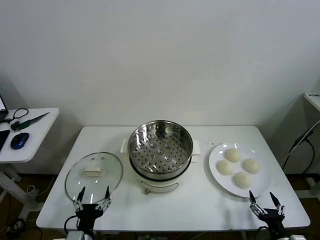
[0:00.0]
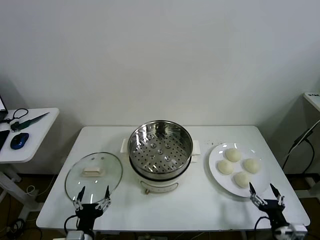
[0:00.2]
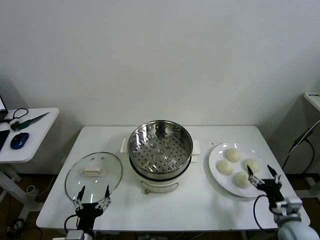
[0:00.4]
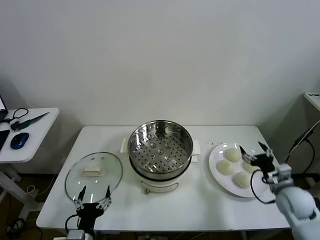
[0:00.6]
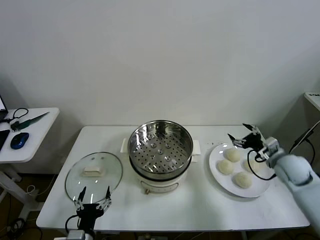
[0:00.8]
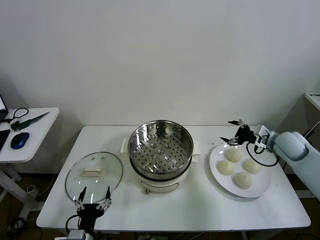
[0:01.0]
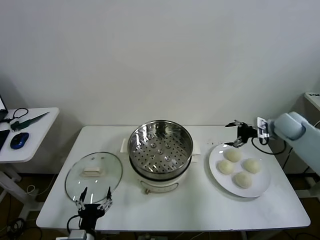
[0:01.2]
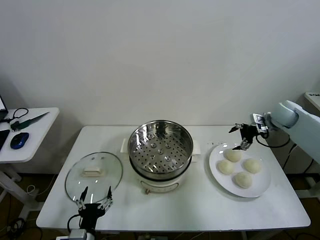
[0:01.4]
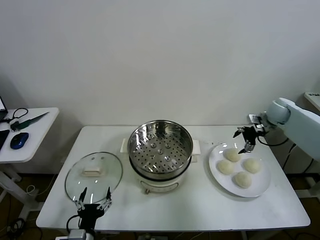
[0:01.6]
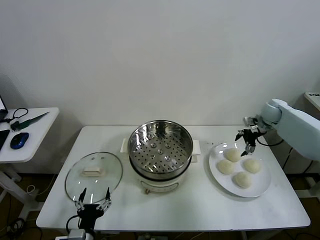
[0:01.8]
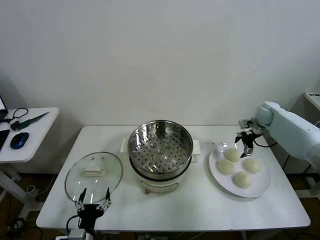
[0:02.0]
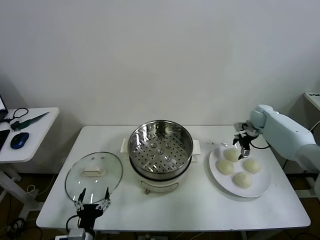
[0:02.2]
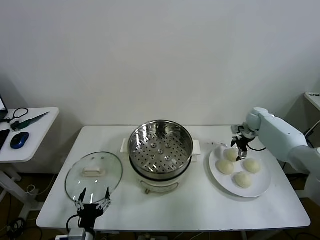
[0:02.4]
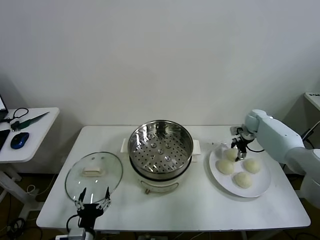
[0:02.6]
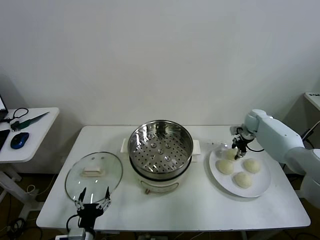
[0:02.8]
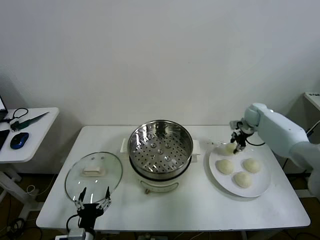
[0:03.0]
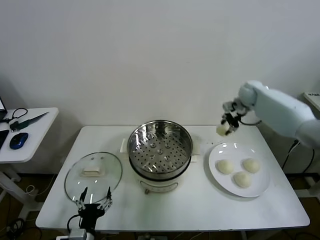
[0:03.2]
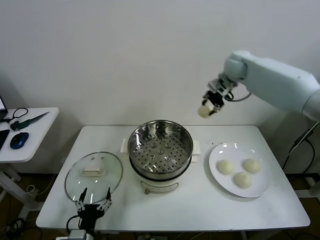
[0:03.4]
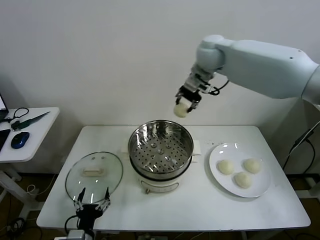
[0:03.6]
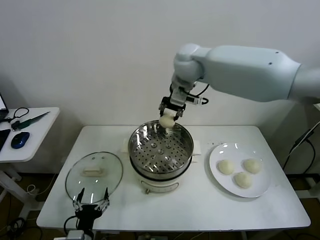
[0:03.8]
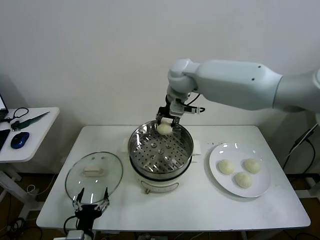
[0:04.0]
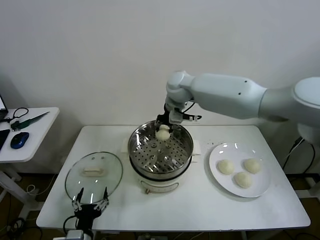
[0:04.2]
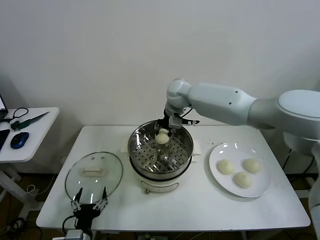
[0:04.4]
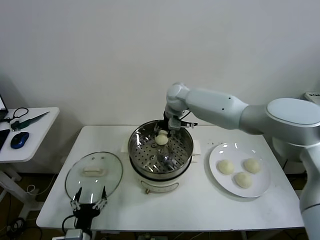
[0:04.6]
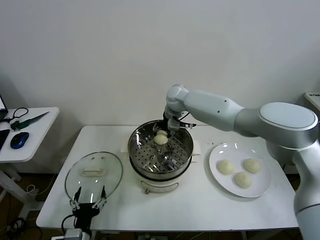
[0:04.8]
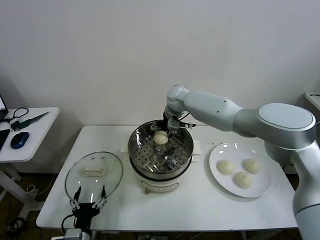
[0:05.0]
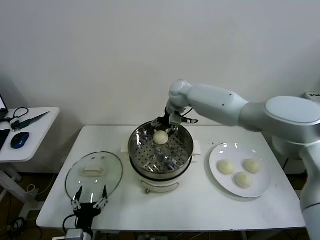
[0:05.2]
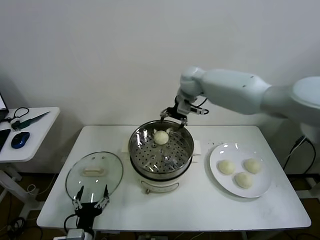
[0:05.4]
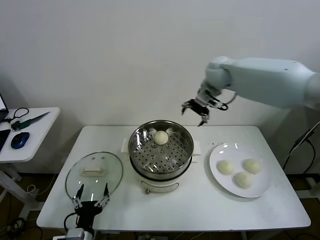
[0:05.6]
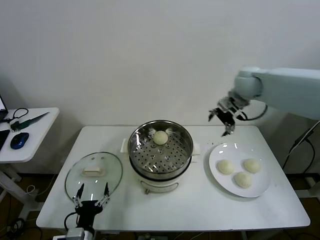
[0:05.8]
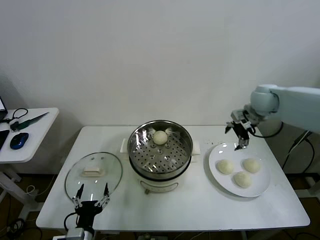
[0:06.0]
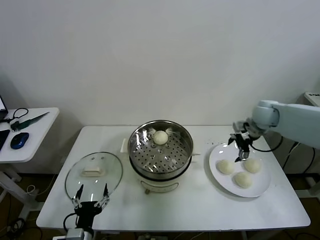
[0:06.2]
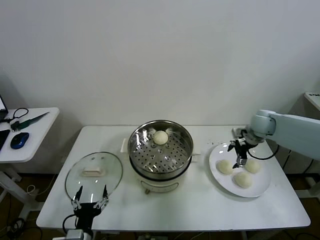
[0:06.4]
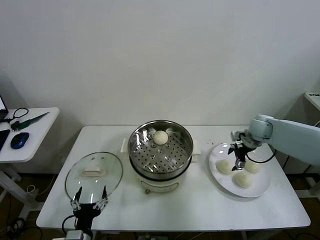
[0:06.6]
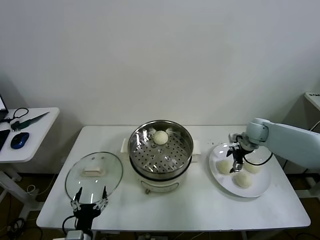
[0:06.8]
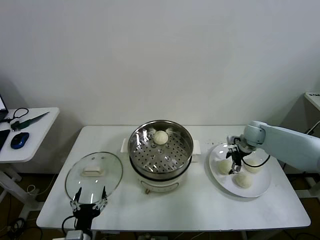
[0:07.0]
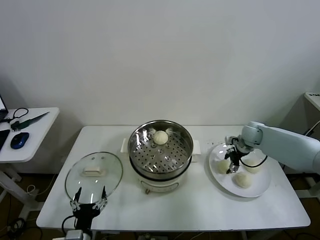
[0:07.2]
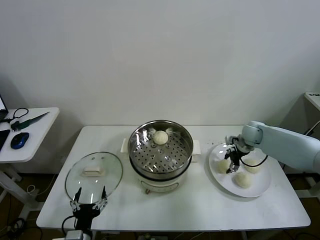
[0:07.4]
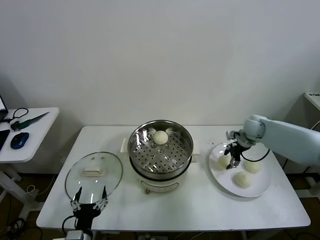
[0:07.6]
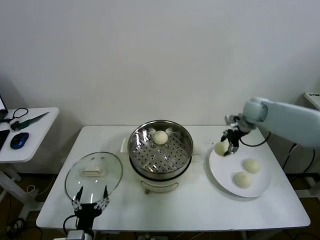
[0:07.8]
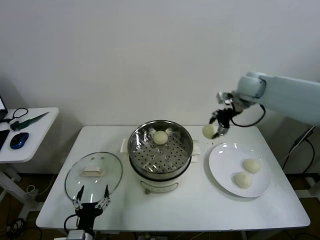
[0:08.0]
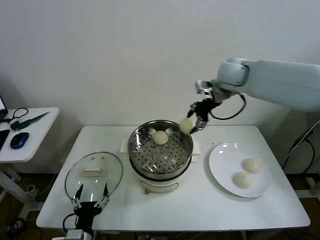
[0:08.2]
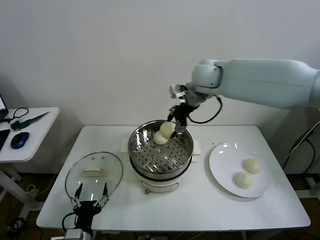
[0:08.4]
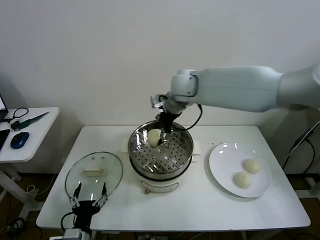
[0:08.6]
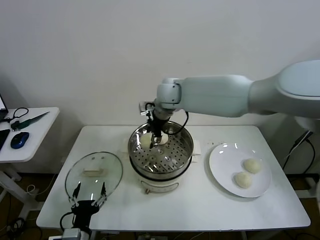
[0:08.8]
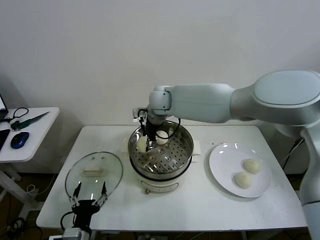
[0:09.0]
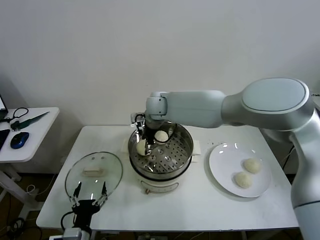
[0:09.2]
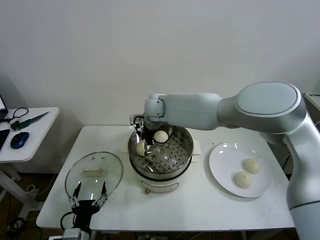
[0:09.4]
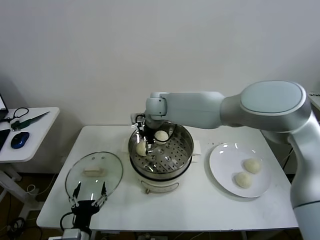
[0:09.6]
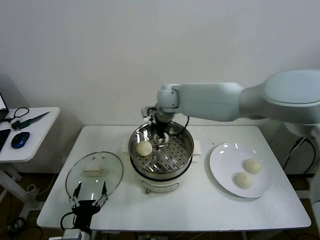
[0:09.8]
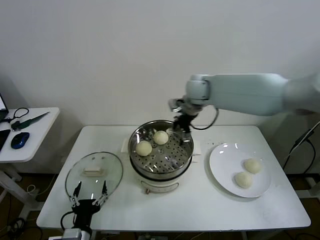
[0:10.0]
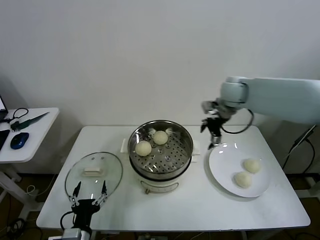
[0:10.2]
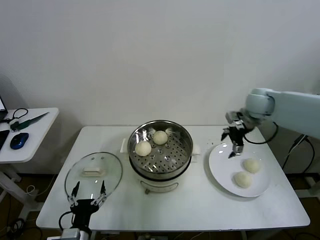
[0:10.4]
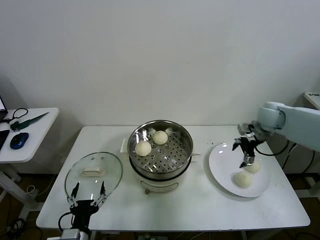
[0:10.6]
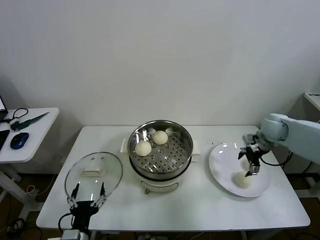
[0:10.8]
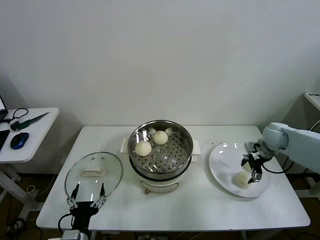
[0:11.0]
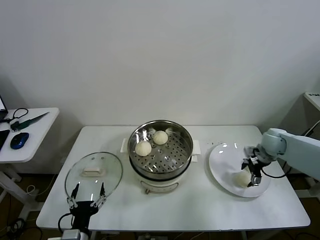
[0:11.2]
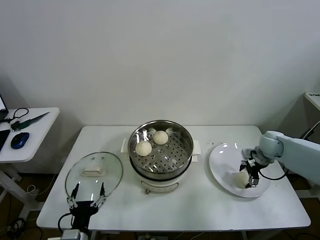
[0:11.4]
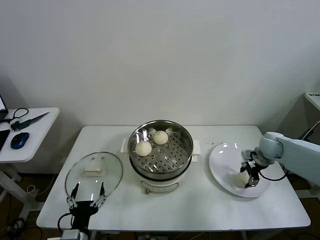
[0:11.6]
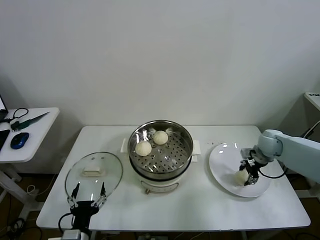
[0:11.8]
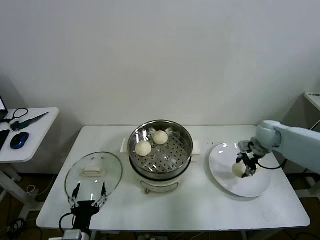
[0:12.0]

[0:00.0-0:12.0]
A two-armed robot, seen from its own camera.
Task of the whole recording: take steamed baozi put them in steamer then cover it.
Step, 0:00.0 to 0:02.6: Grasp the baozi in the plate with right gripper.
Step, 0:03.0 to 0:05.0: Place the baozi on the steamer with right gripper.
Step, 0:05.2 to 0:07.2: Grasp the baozi in the plate with right gripper.
Step, 0:07.4 to 0:09.4: Place the baozi on the steamer with right gripper.
Step, 0:09.6 to 0:11.6: Grasp the baozi in the plate with right gripper.
0:01.6 to 0:03.0: The right gripper is displaced to the left and forward by roughly 10 cm, moves some 10 cm downward and comes back, and closes up.
0:03.0 to 0:04.4: The right gripper travels to the left by roughly 30 cm.
0:04.4 to 0:06.0: The right gripper heads to the right, covering roughly 30 cm, and opens.
0:06.0 to 0:07.6: The right gripper goes about 10 cm downward, and closes.
0:07.6 to 0:09.0: The right gripper shifts roughly 35 cm to the left.
0:09.0 to 0:10.4: The right gripper travels to the right by about 35 cm, and opens up.
0:10.4 to 0:12.0: The right gripper heads downward, covering some 10 cm, and closes up.

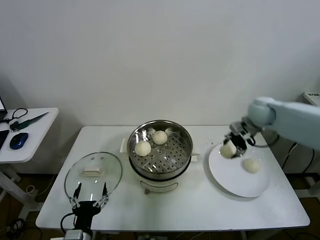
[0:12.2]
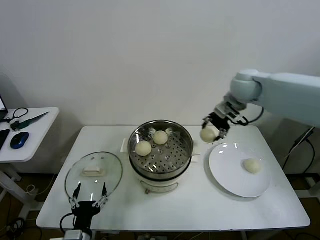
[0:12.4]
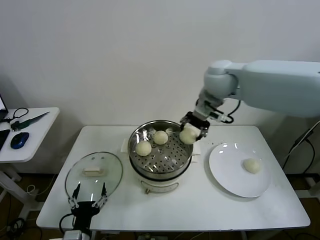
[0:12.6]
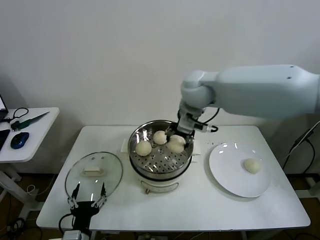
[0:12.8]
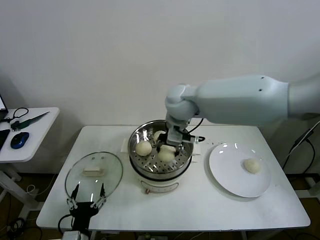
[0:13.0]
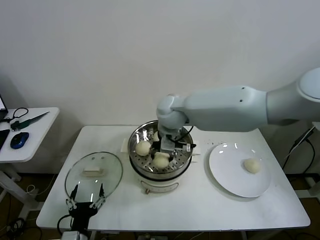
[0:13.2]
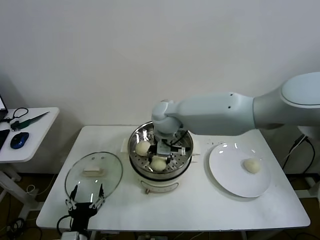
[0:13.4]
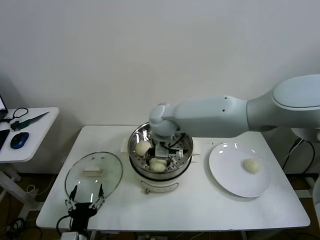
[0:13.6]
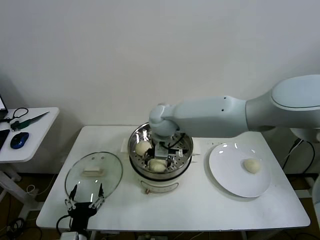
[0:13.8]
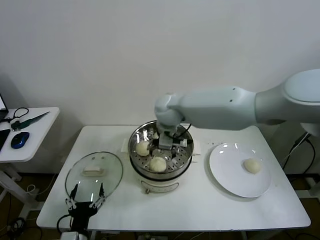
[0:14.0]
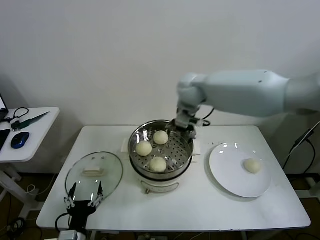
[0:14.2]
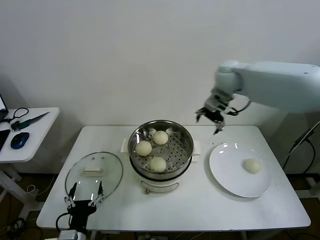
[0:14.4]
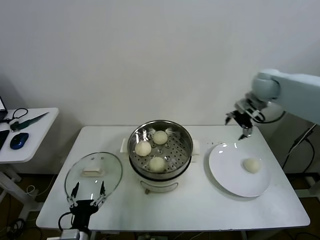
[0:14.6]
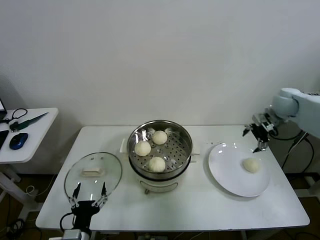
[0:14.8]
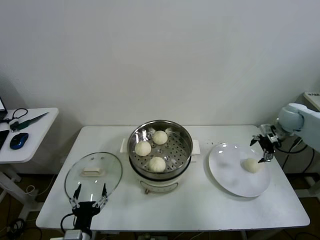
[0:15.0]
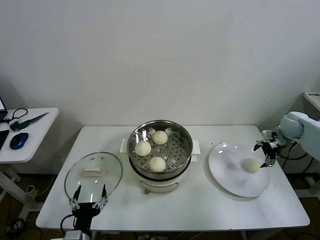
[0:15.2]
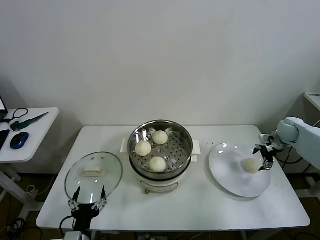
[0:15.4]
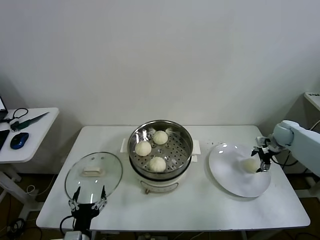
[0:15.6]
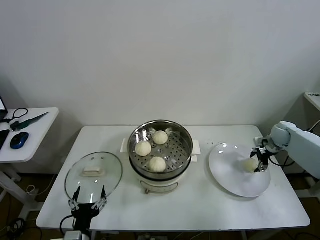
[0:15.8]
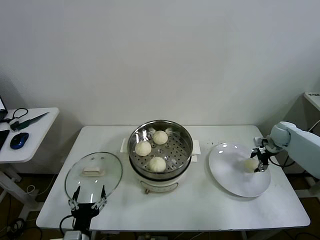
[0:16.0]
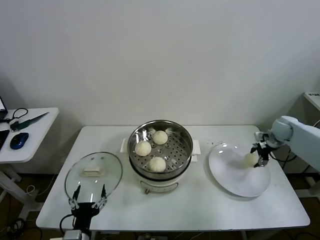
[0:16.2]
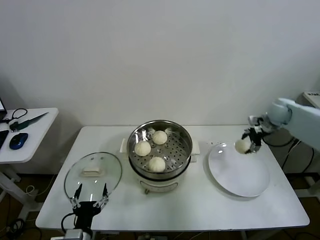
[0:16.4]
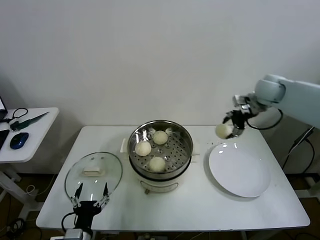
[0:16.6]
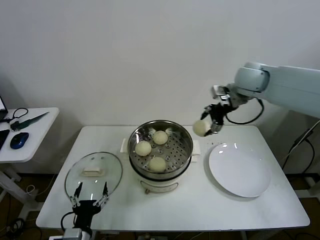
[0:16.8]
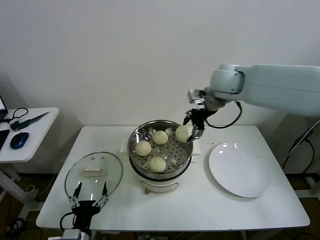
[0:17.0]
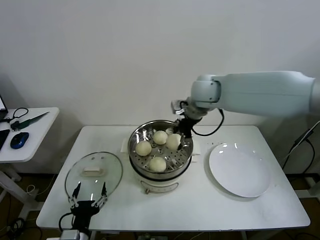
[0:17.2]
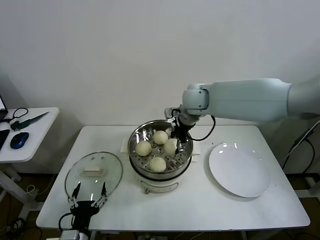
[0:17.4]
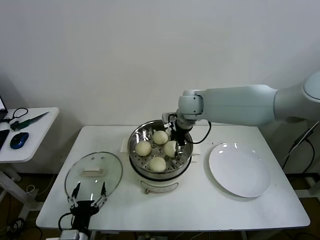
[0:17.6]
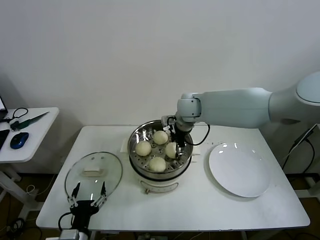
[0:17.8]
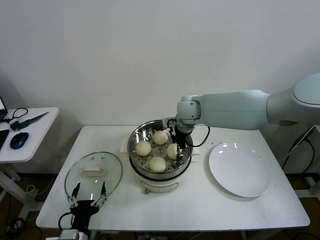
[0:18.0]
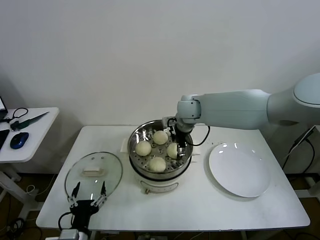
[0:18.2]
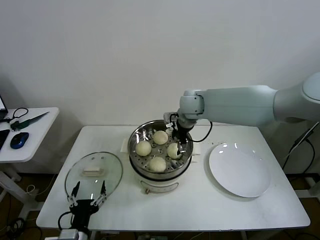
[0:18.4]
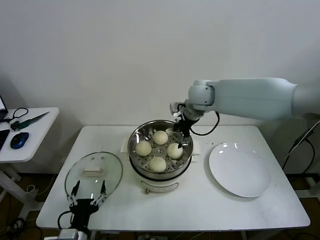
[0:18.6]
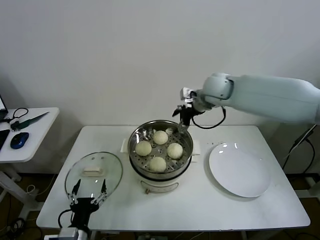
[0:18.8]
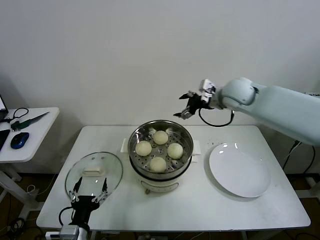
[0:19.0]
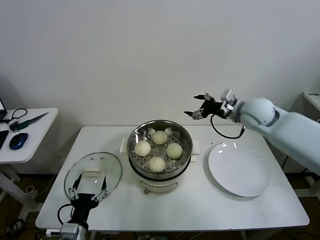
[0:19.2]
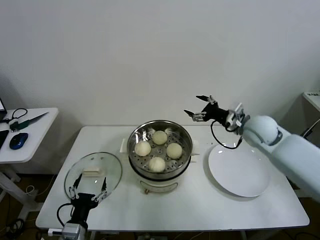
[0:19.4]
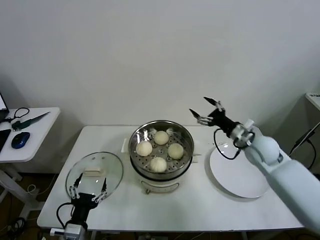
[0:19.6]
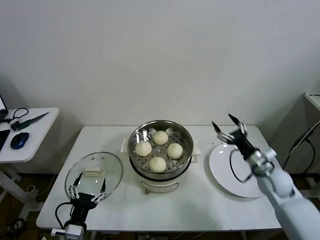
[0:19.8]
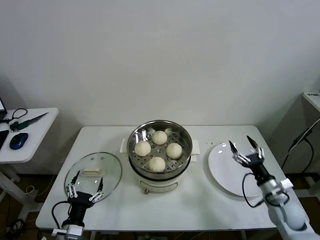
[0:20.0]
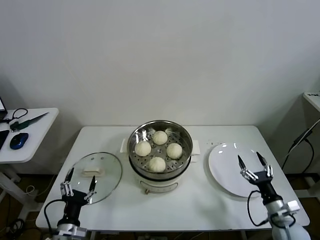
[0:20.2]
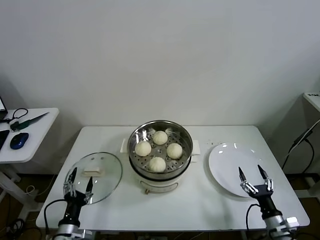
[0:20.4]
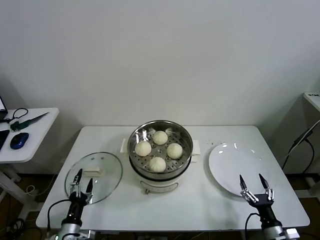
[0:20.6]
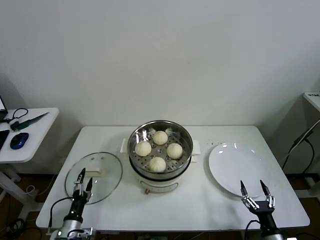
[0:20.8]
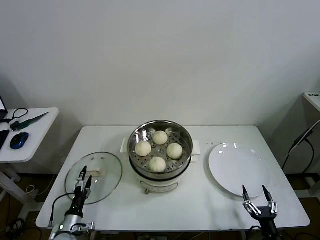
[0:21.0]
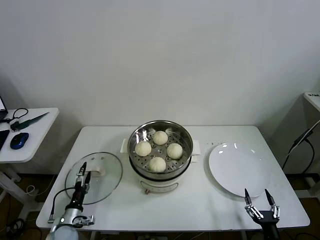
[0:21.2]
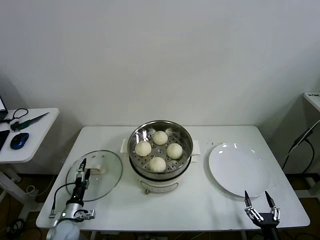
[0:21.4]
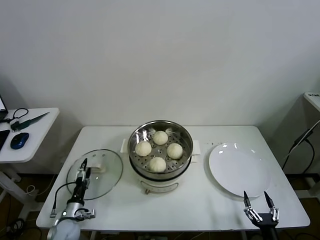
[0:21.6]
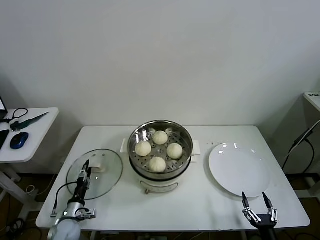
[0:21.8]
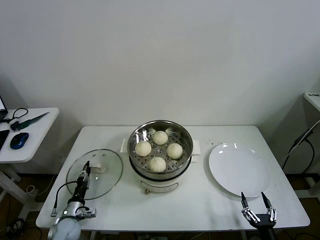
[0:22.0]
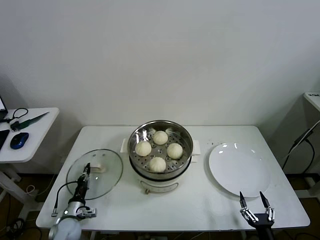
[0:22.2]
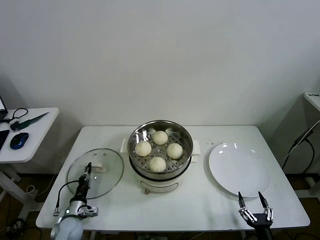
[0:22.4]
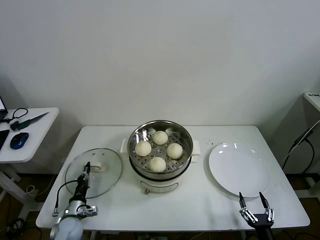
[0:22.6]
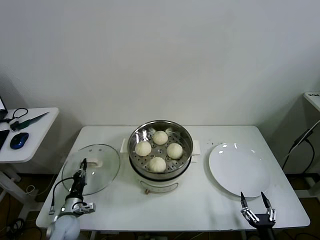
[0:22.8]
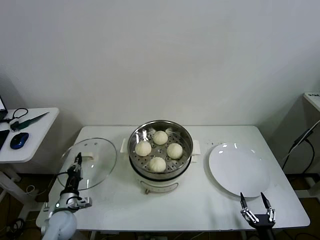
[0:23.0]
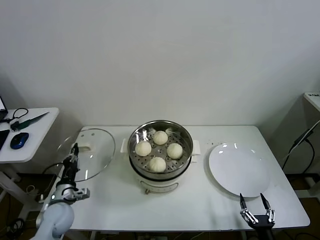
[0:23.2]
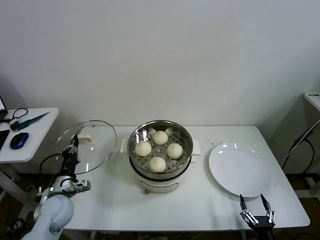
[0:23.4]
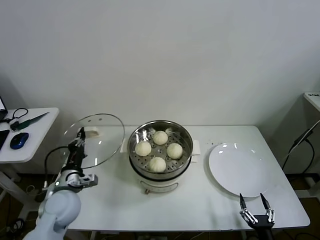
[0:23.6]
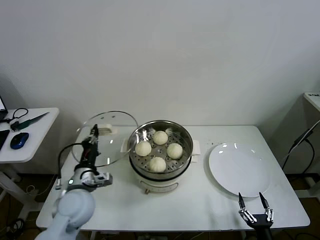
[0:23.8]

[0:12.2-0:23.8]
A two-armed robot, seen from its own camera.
Task of the whole recording: take steamed baozi put them in steamer then cover it.
Step, 0:12.2 to 0:13.8: Place the baozi on the steamer with right gripper.
Step, 0:14.0 to 0:15.8: Grasp the baozi in the plate with right gripper.
Step, 0:16.0 to 0:18.2: Place the baozi on the steamer with right gripper.
Step, 0:18.4 to 0:22.2: Grasp the pot lid with left gripper.
0:12.2 to 0:13.6: The right gripper moves to the left, approximately 30 cm, and opens up.
0:13.6 to 0:15.0: The right gripper shifts about 50 cm to the right.
0:15.0 to 0:16.6: The right gripper is displaced to the left and upward by about 15 cm, and closes.
0:16.6 to 0:18.0: The right gripper goes some 25 cm to the left.
0:18.0 to 0:19.4: The right gripper goes roughly 20 cm to the right, and opens.
0:19.4 to 0:21.0: The right gripper goes roughly 50 cm backward and downward. Meanwhile the left gripper is displaced downward, to the left and forward by about 15 cm.
0:21.0 to 0:22.4: The left gripper moves forward, some 5 cm, and closes its fingers.
0:22.4 to 0:23.8: The left gripper goes approximately 25 cm upward and to the right.
